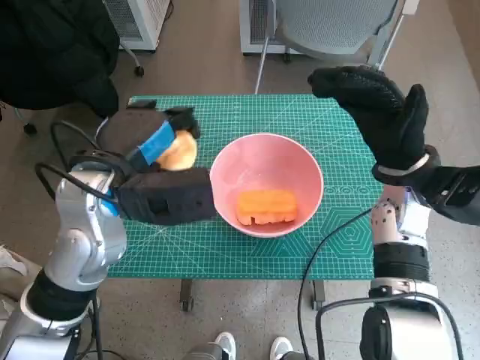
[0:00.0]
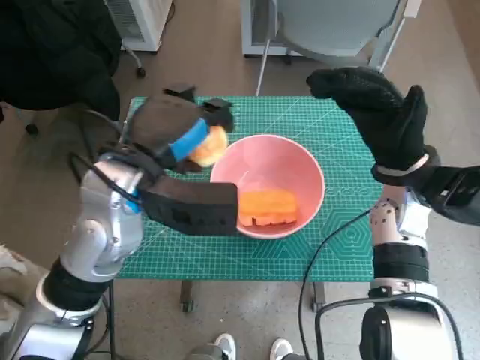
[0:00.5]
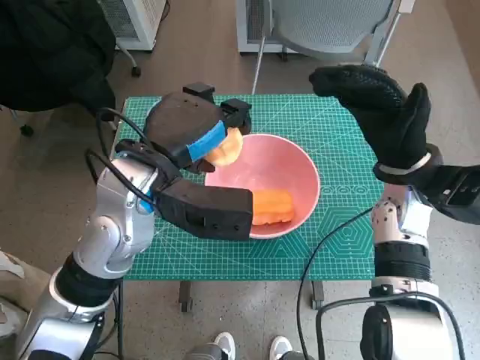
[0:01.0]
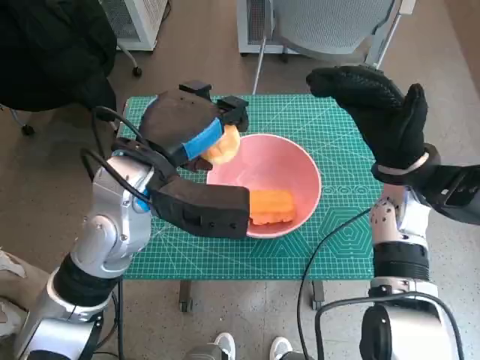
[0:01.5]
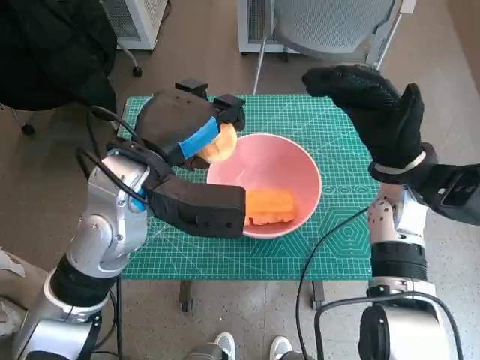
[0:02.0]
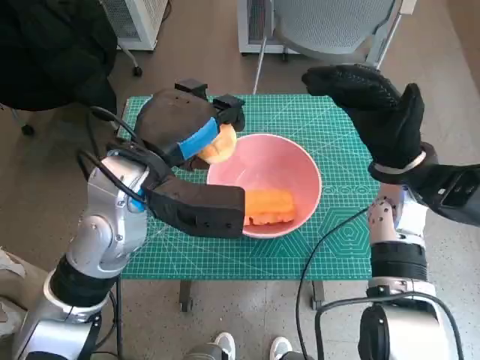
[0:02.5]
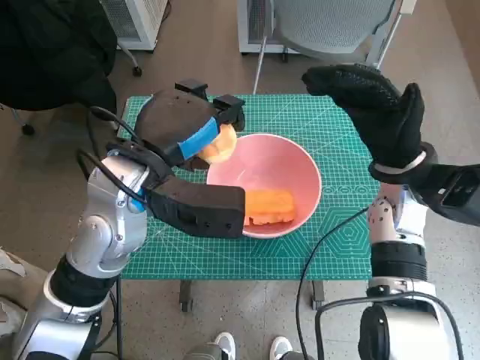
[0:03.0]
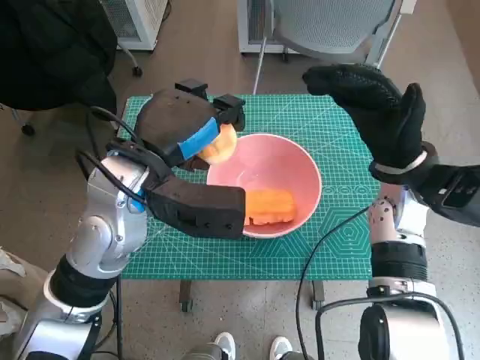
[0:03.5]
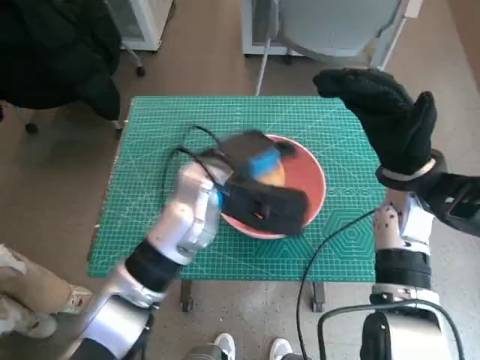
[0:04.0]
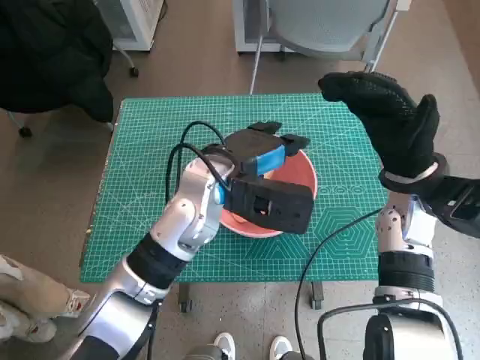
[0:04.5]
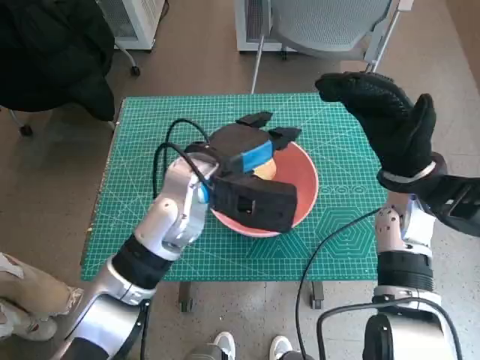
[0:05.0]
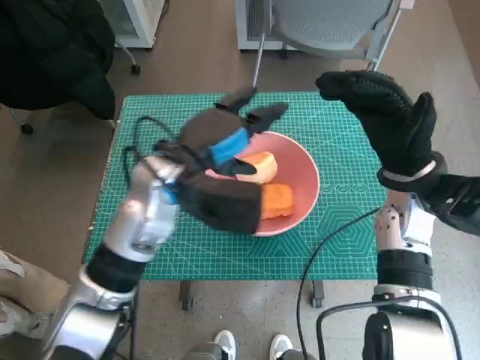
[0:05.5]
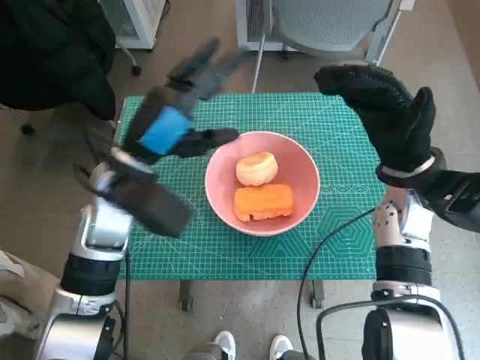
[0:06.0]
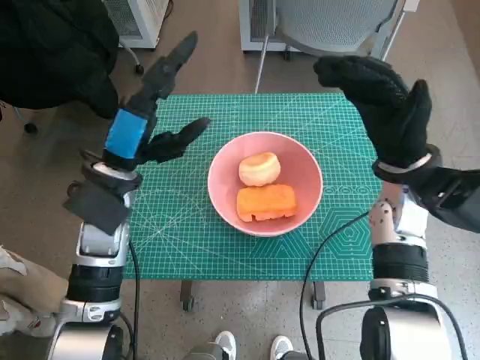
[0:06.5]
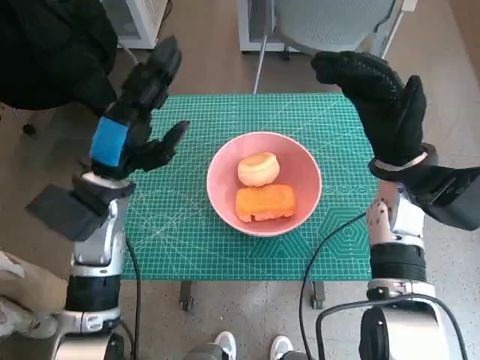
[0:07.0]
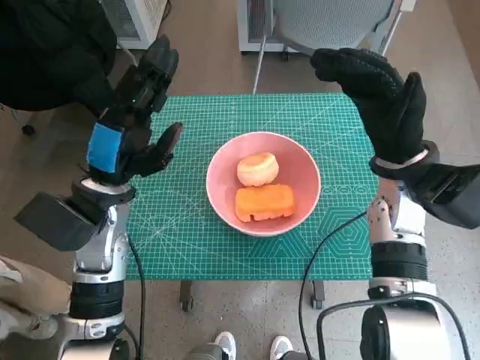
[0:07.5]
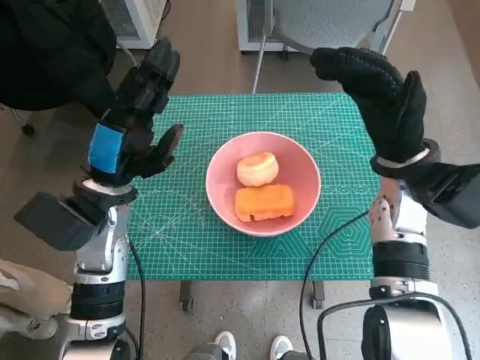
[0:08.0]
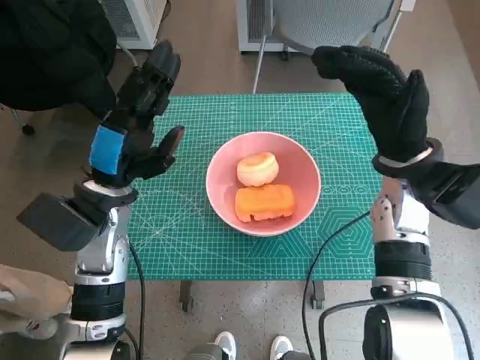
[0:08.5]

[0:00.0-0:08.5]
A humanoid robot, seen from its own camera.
Step, 0:00.0 to 0:04.5: Place the round bread in pink bowl with left hand.
0:02.0 to 0:04.0: The left hand shifts some 5 cm to the right.
0:04.0 to 0:06.5: The left hand goes about 10 cm to the left.

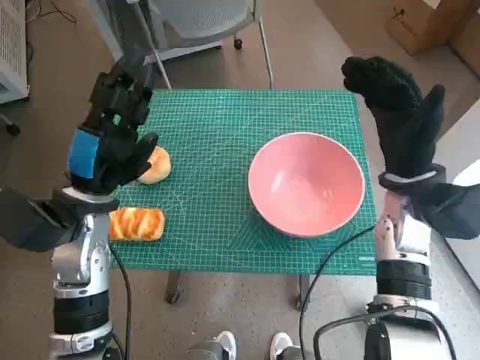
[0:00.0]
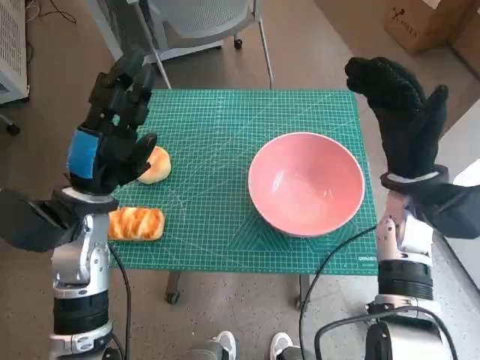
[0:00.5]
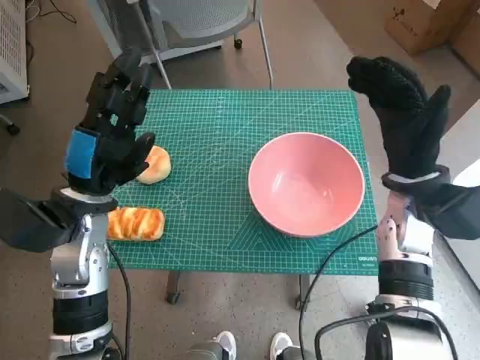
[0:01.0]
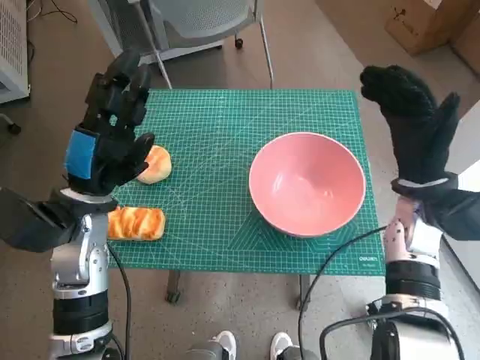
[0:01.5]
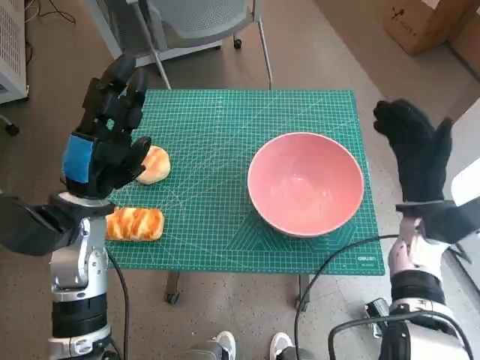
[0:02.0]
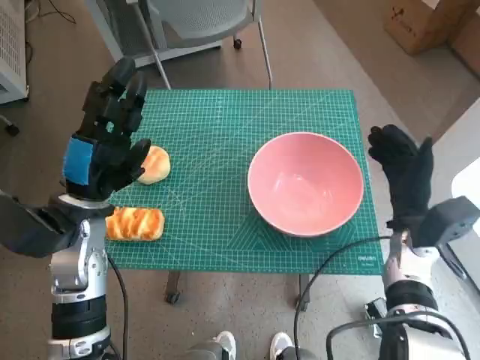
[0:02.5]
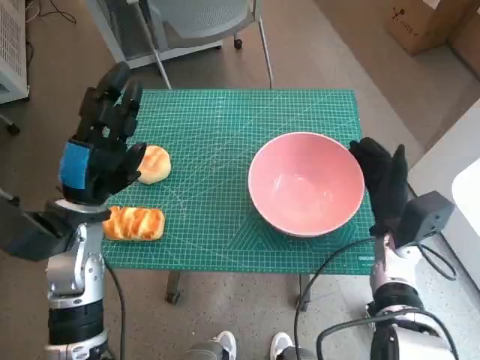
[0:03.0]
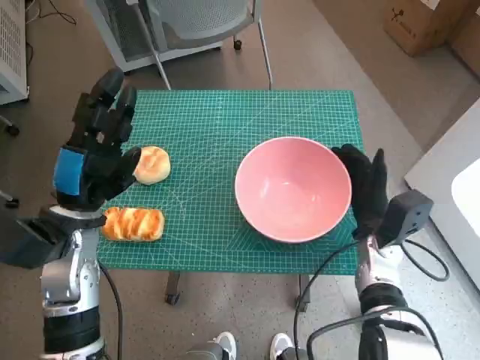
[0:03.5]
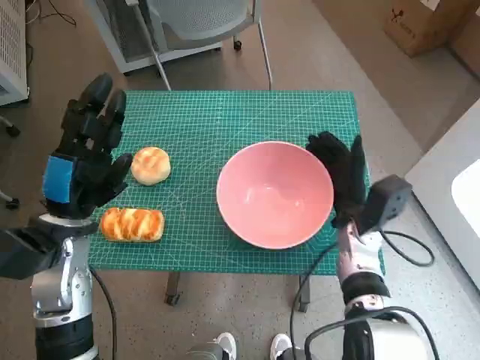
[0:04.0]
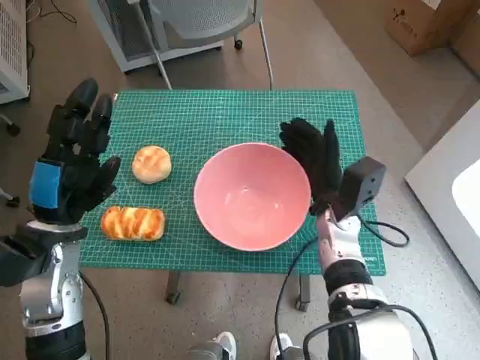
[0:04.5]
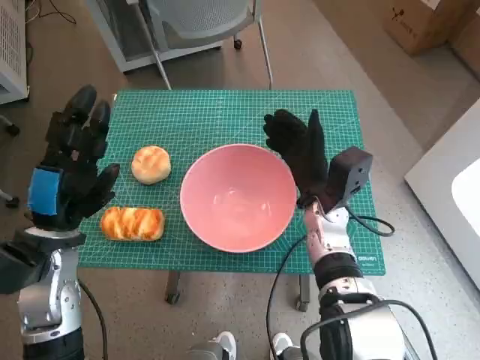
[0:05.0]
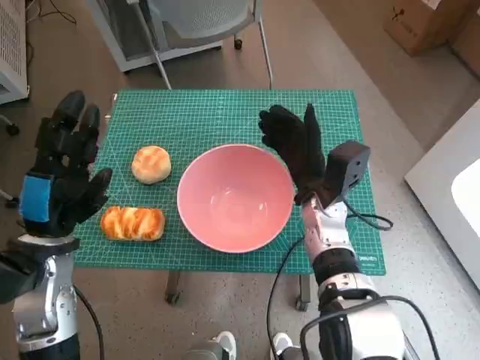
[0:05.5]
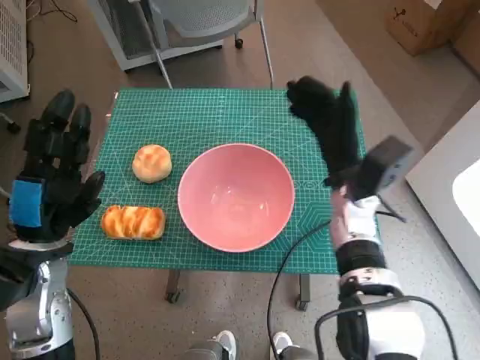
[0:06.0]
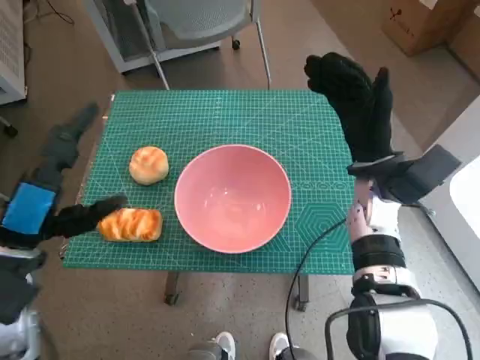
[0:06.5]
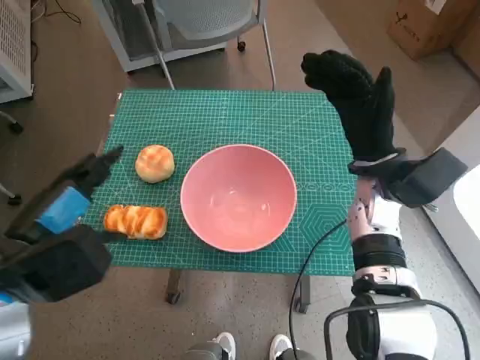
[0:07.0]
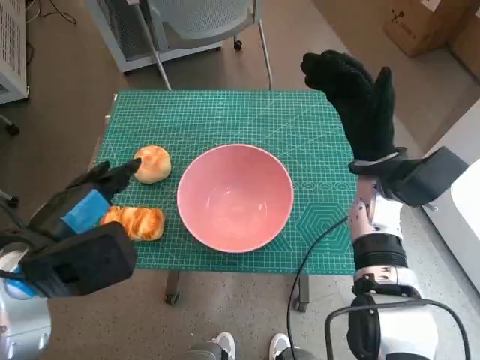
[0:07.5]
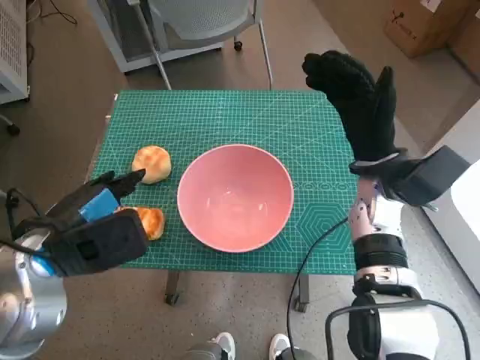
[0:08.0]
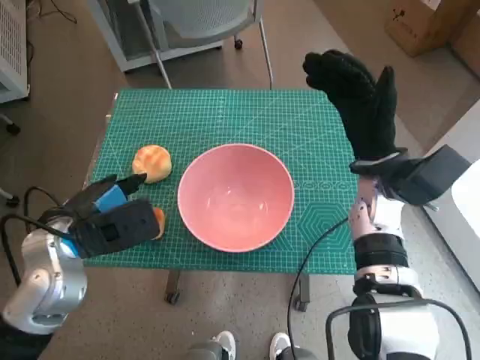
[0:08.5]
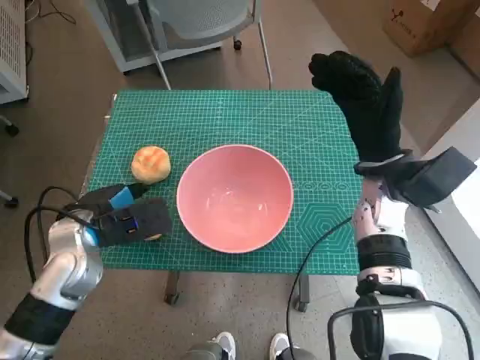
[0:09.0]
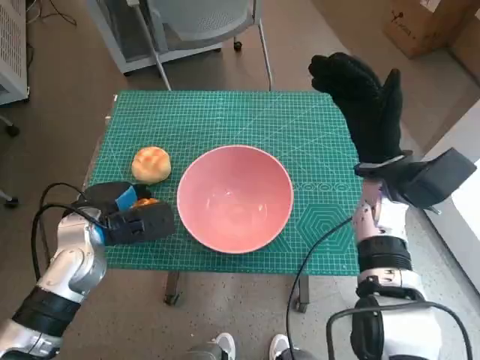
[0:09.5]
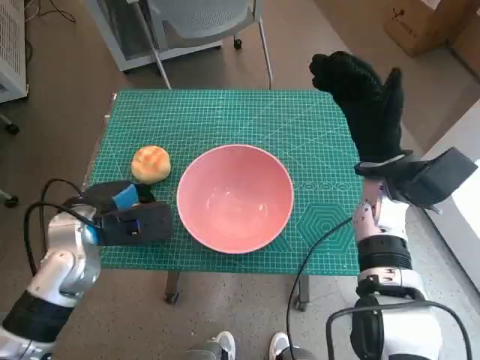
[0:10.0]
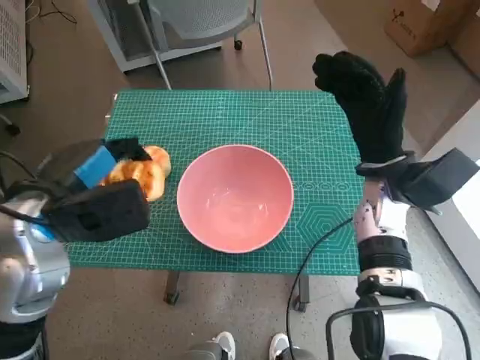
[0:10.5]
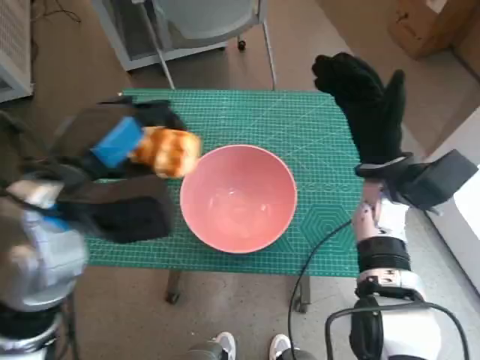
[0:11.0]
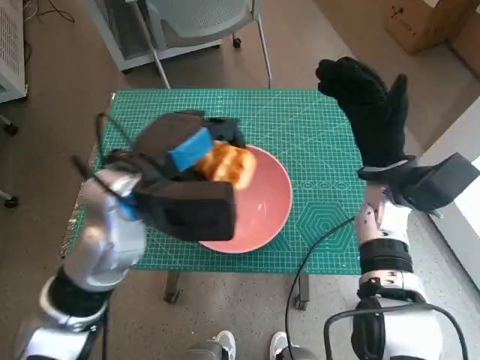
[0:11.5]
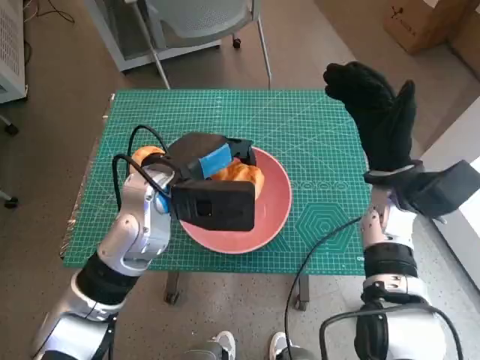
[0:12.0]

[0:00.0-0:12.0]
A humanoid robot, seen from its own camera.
Step, 0:00.0 to 0:05.5: Move the pink bowl to the center of table with right hand.
Step, 0:06.0 to 0:09.5: Grasp the long bread with left hand.
0:02.0 to 0:04.0: The right hand heads to the left and downward, covering about 10 cm.
0:04.0 to 0:06.0: The right hand shifts roughly 5 cm upward.
0:06.0 to 0:08.0: The left hand moves about 5 cm. The right hand shifts by some 5 cm.
0:08.0 to 0:10.0: The left hand heads forward and downward, covering approximately 10 cm.
0:10.0 to 0:12.0: The left hand goes some 15 cm to the right and upward.

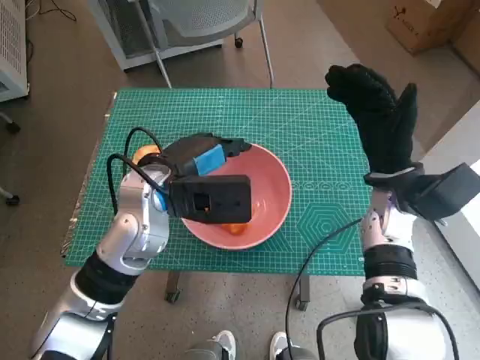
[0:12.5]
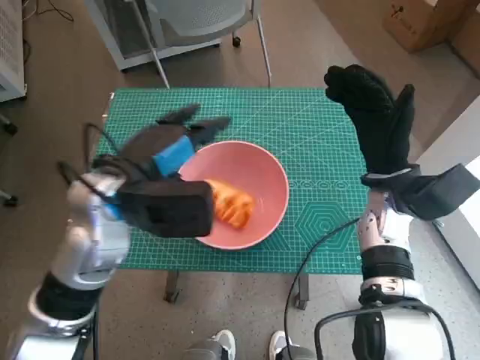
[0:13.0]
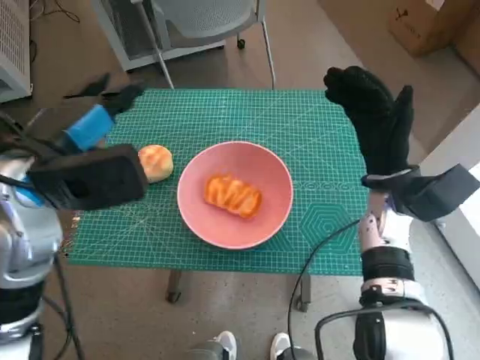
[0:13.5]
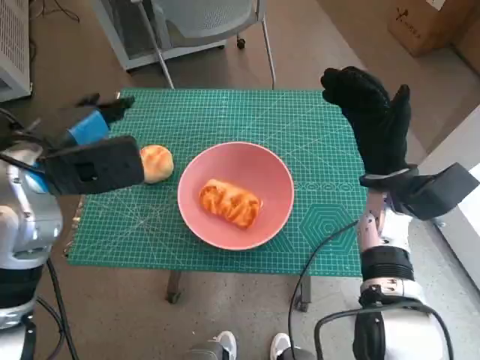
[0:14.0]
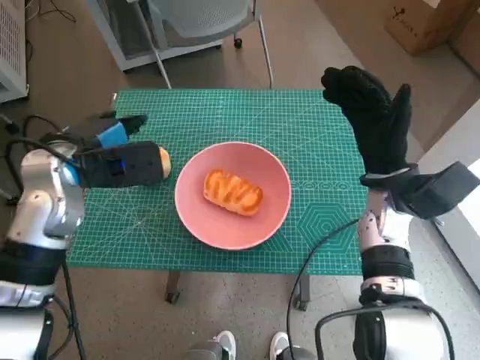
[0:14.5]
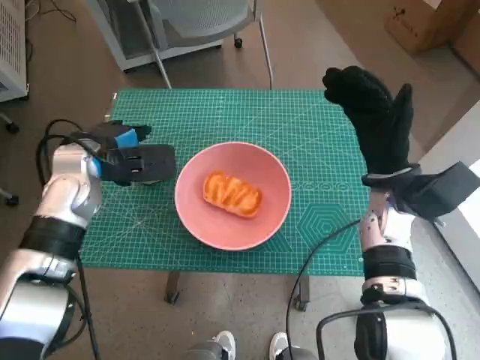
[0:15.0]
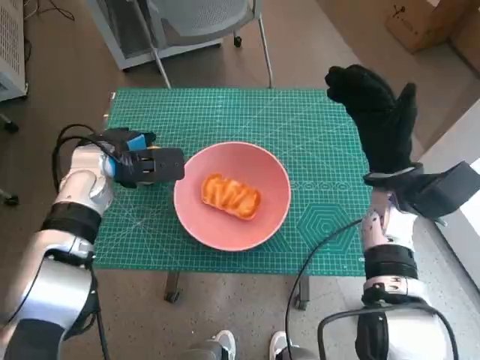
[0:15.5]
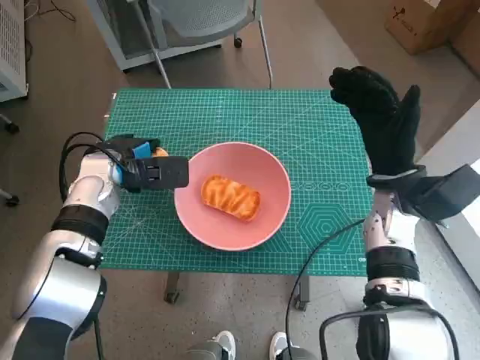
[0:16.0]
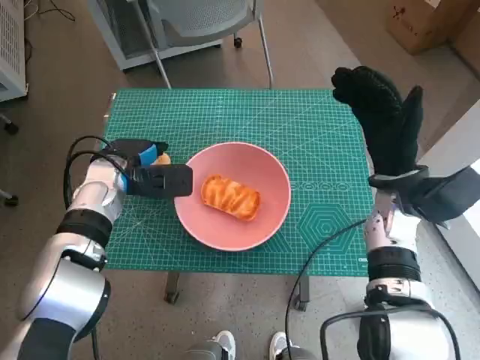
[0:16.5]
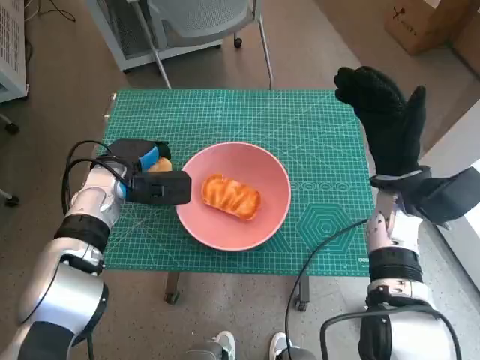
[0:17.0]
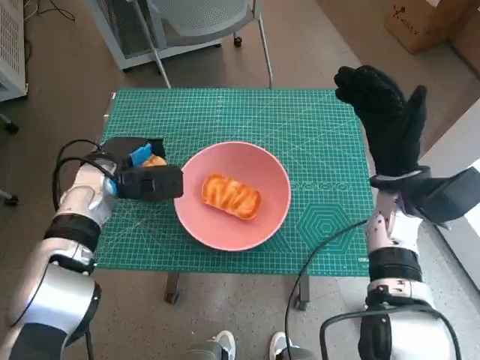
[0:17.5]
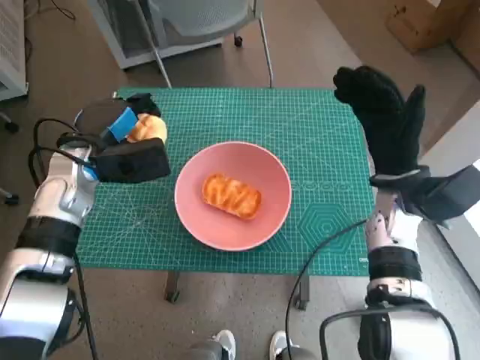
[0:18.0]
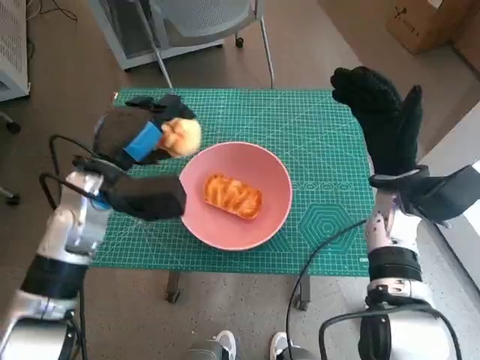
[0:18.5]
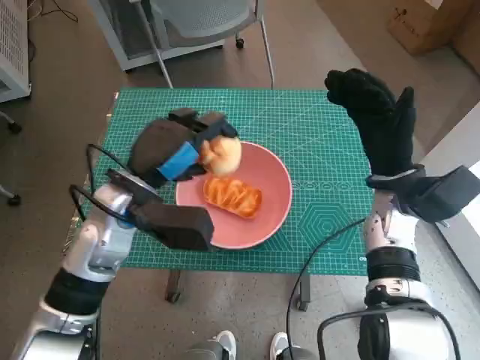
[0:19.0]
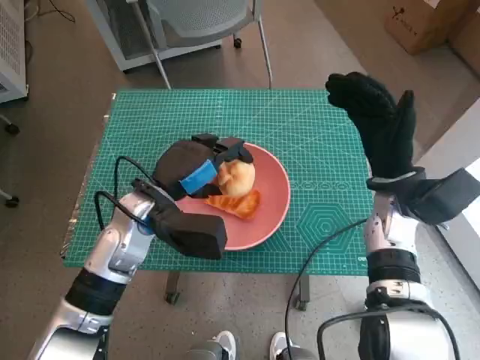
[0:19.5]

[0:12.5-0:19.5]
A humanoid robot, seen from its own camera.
Step, 0:12.5 to 0:16.5: Grasp the round bread with left hand.
0:12.5 to 0:14.5: The left hand is displaced to the left by roughly 10 cm.
0:14.5 to 0:16.0: The left hand heads downward, covering about 10 cm.
0:16.0 to 0:17.5: The hands move only a little.
0:17.5 to 0:19.5: The left hand moves to the right and backward, about 10 cm.
